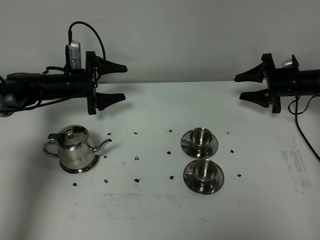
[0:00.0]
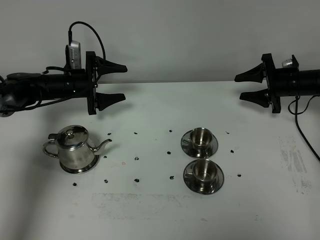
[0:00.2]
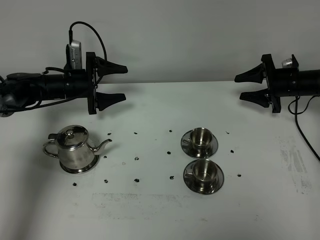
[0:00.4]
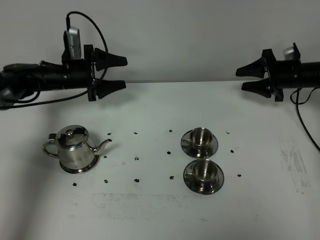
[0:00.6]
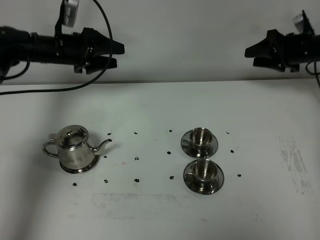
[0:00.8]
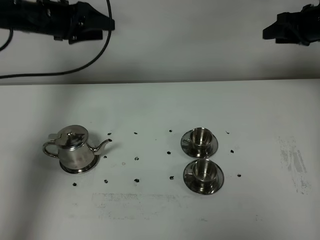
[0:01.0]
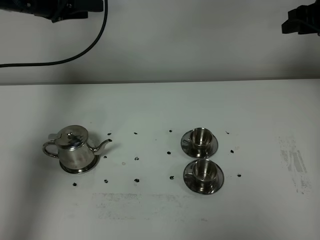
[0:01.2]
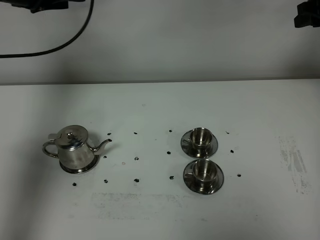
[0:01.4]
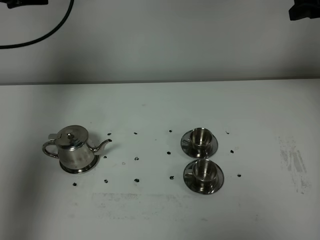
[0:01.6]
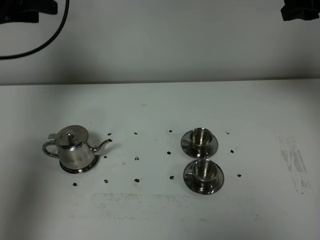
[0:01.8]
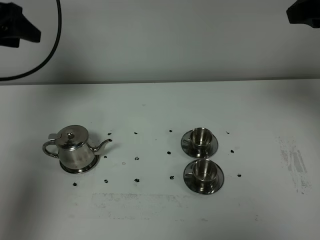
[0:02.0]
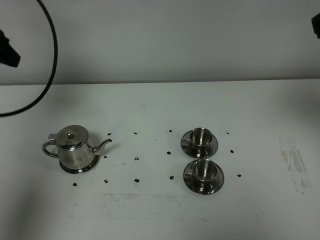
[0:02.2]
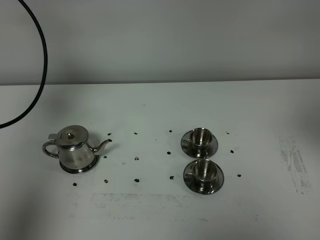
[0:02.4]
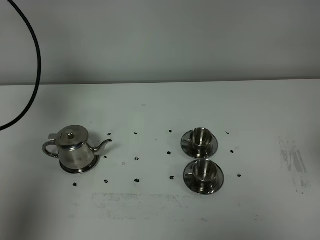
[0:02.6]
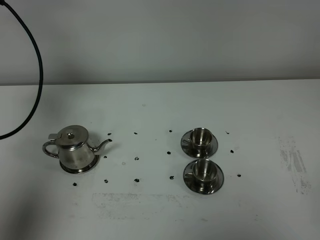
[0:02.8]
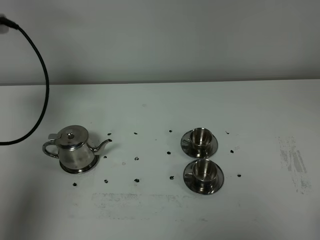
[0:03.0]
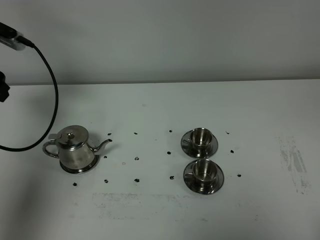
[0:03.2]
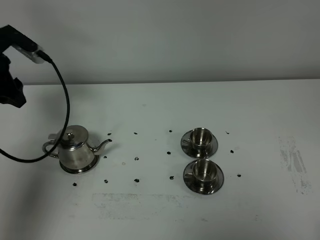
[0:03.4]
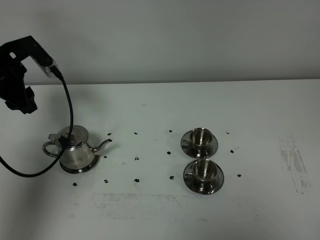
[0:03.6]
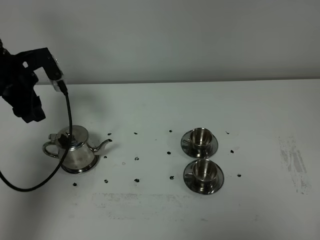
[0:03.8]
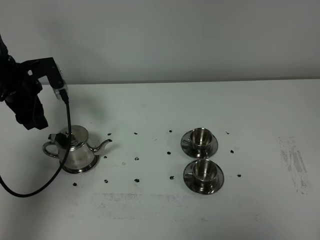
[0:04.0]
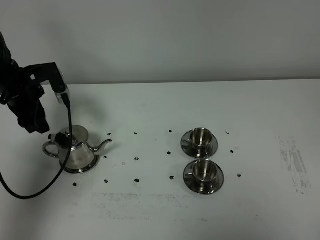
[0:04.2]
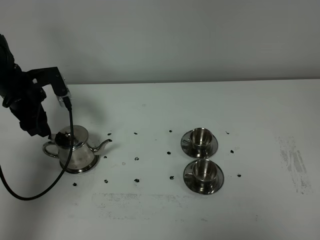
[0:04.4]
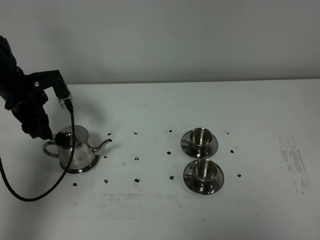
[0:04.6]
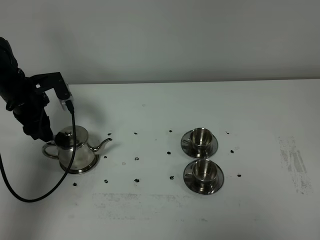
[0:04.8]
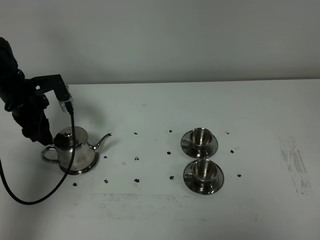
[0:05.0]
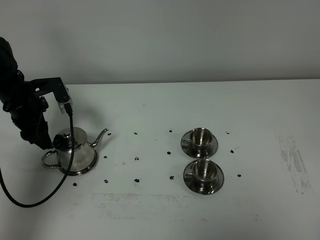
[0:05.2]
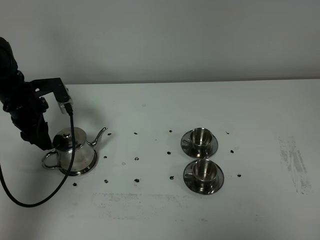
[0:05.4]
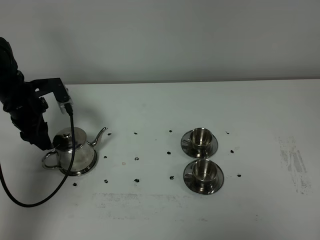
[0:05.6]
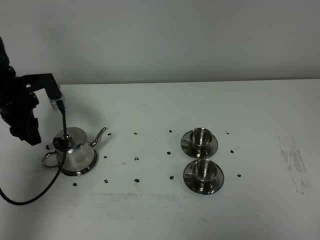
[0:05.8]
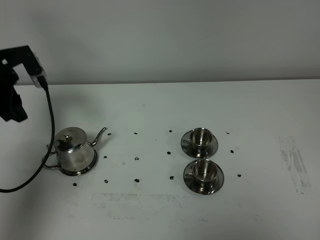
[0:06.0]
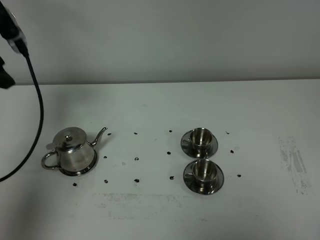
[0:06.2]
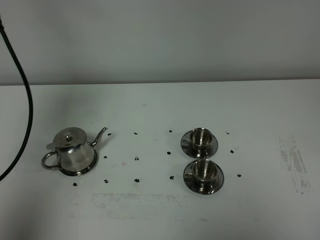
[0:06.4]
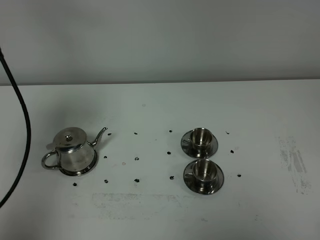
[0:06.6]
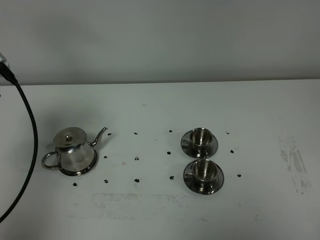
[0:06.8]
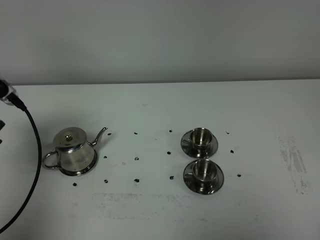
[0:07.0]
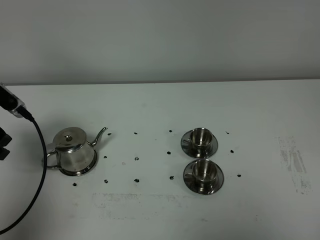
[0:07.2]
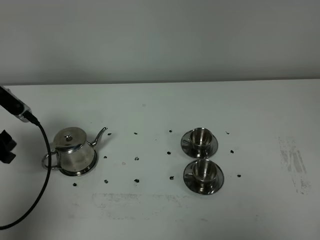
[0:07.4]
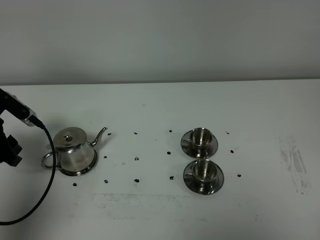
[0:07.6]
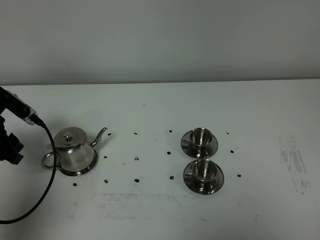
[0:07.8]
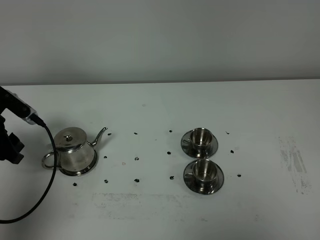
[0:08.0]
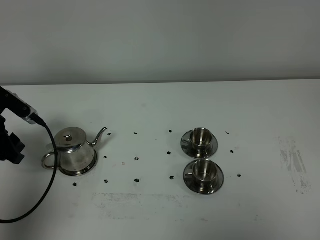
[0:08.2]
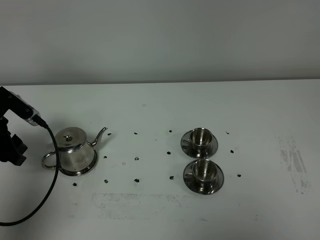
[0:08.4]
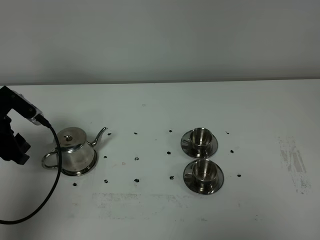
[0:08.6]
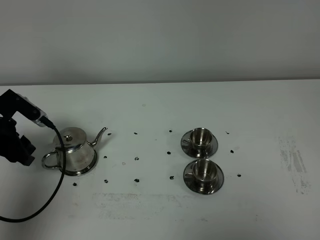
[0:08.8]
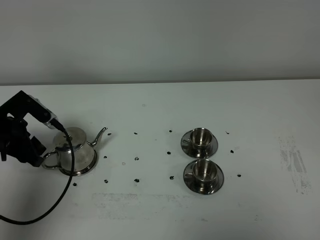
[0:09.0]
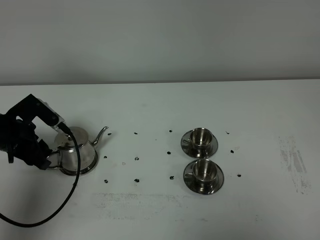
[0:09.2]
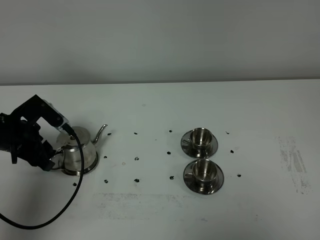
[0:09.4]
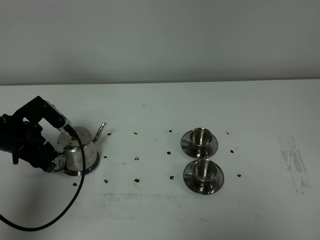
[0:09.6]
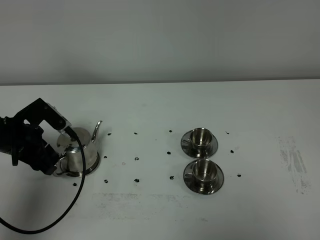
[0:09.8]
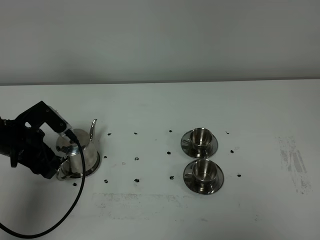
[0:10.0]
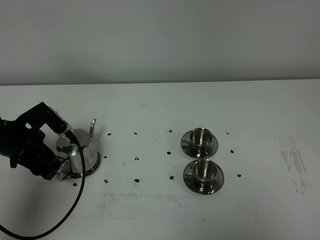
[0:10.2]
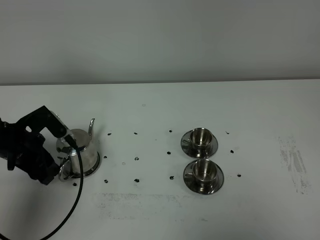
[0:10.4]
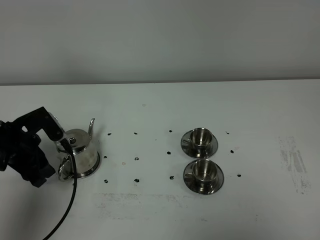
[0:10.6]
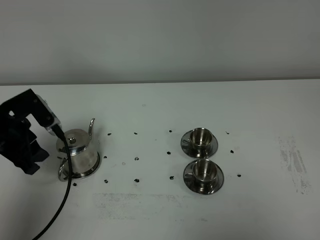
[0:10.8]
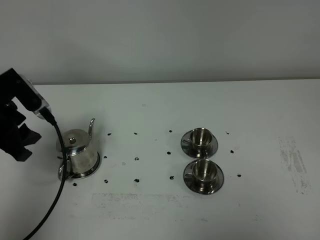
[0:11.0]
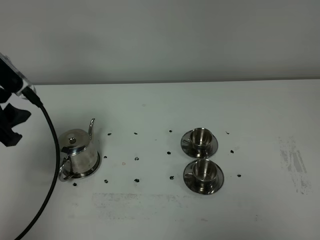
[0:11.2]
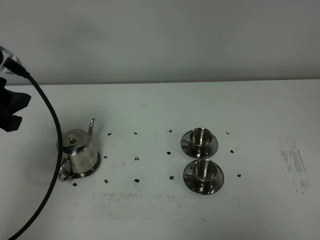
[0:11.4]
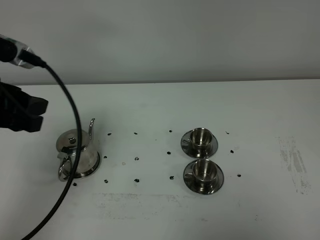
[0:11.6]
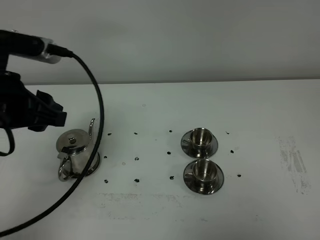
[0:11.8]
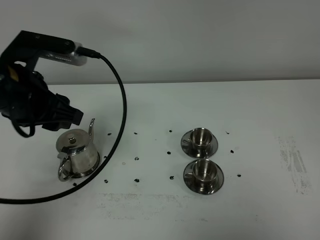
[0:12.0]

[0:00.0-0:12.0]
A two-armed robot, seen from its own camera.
Task of the whole recording: grasp the stainless steel teapot and pour the tea into the two stainless steel teacups one by one, put the stainless steel teapot back in its original place.
0:00.0 to 0:01.6: Both grippers move upward, about 30 cm.
0:01.6 to 0:03.0: The left gripper is displaced backward, downward and to the left by approximately 10 cm, while the right gripper heads backward, covering roughly 40 cm.
0:03.0 to 0:04.4: The left gripper shifts roughly 15 cm downward.
0:04.4 to 0:06.0: The left gripper heads upward, covering roughly 10 cm.
0:06.0 to 0:07.6: The left gripper travels downward and backward by approximately 10 cm.
0:07.6 to 0:09.0: The grippers stay close to where they were, moving slightly.
0:09.0 to 0:10.4: The grippers make only small movements.
0:10.4 to 0:12.0: The left gripper moves upward and to the right, about 20 cm.

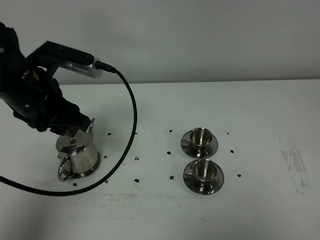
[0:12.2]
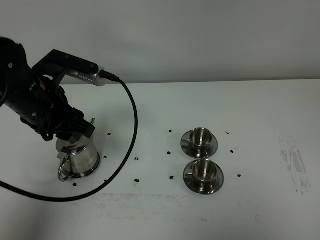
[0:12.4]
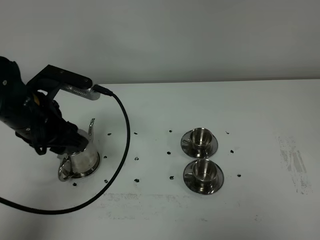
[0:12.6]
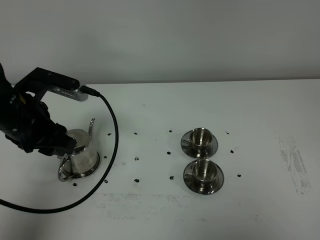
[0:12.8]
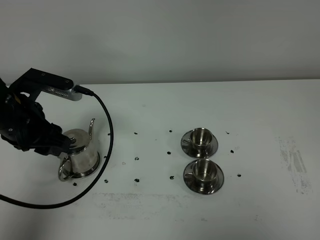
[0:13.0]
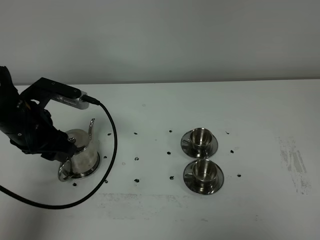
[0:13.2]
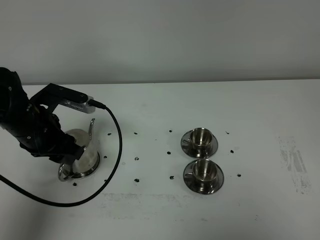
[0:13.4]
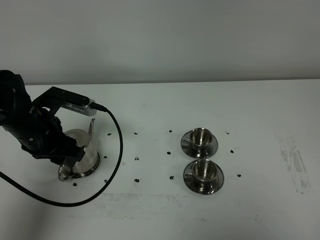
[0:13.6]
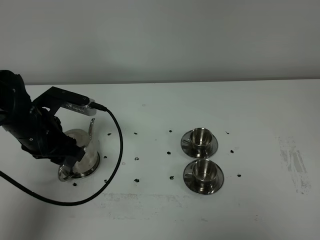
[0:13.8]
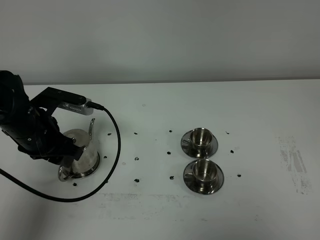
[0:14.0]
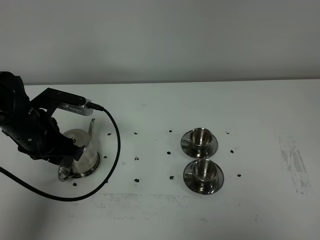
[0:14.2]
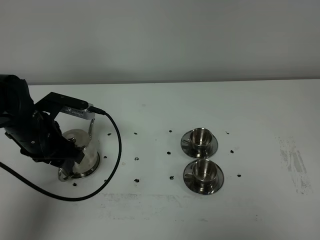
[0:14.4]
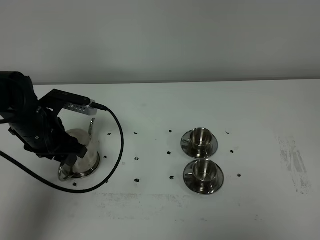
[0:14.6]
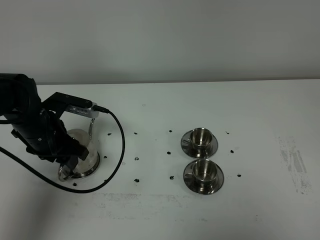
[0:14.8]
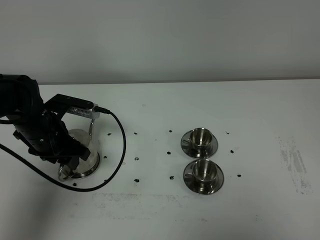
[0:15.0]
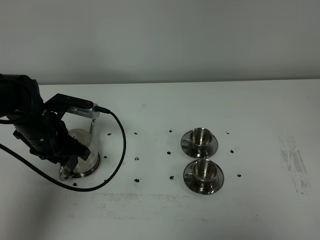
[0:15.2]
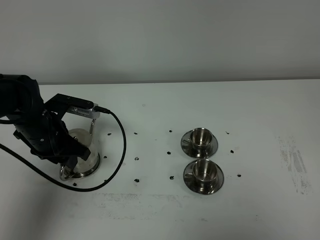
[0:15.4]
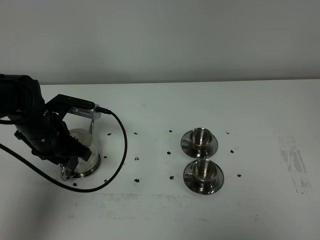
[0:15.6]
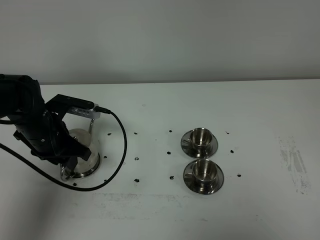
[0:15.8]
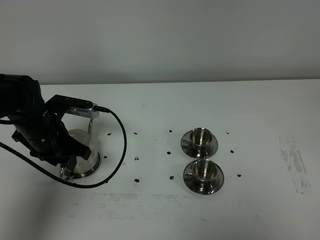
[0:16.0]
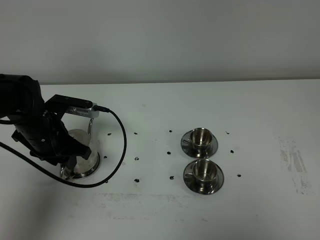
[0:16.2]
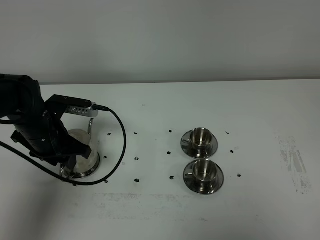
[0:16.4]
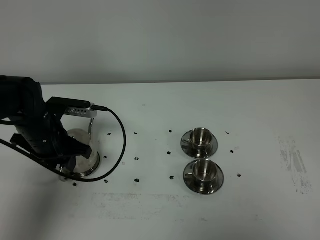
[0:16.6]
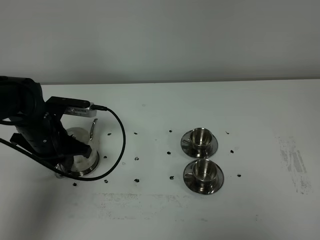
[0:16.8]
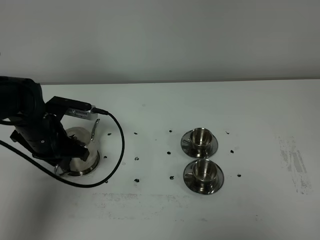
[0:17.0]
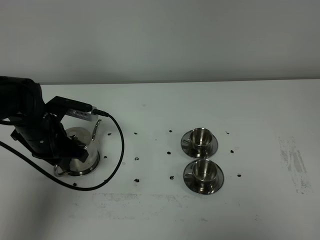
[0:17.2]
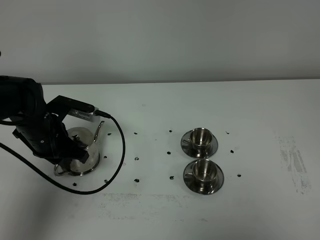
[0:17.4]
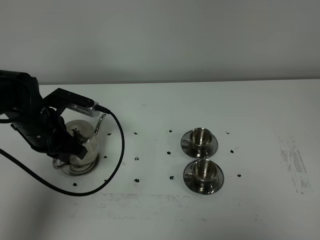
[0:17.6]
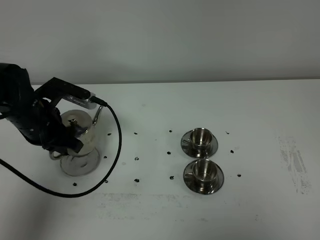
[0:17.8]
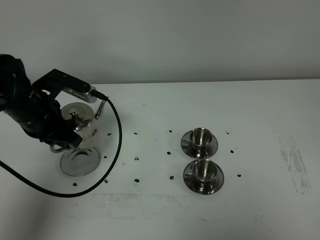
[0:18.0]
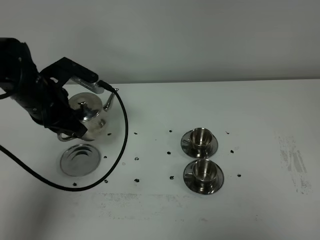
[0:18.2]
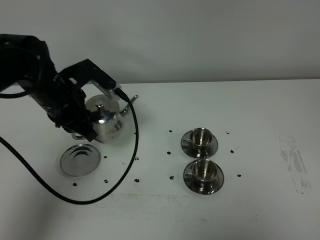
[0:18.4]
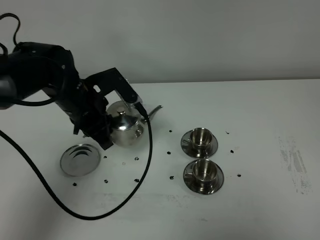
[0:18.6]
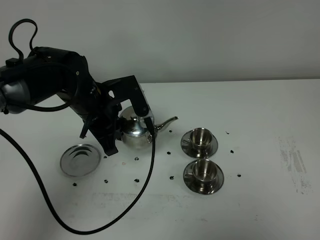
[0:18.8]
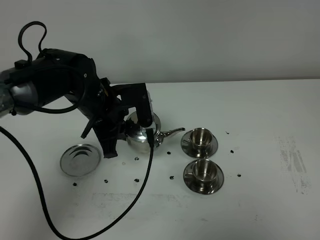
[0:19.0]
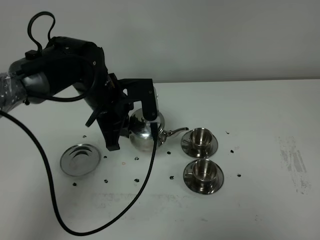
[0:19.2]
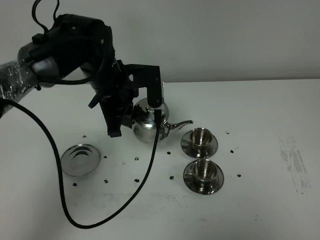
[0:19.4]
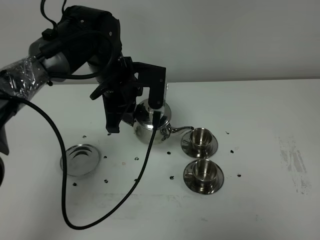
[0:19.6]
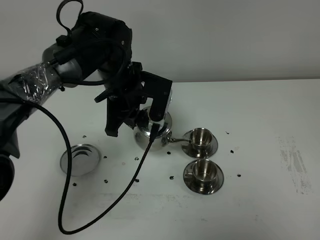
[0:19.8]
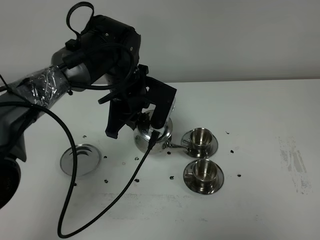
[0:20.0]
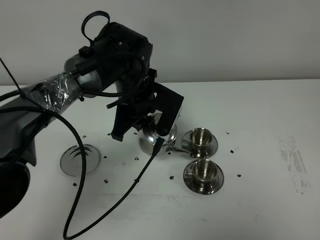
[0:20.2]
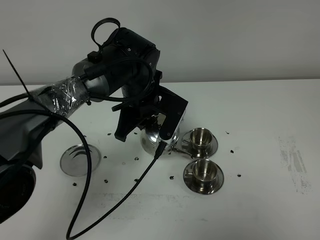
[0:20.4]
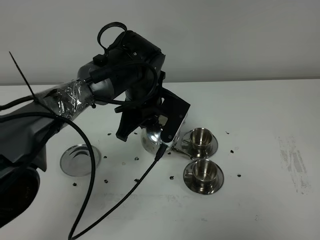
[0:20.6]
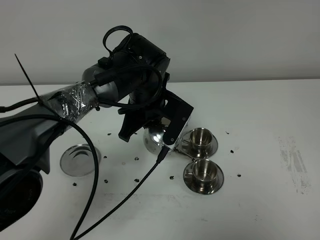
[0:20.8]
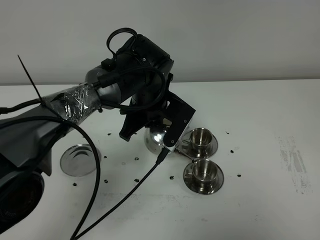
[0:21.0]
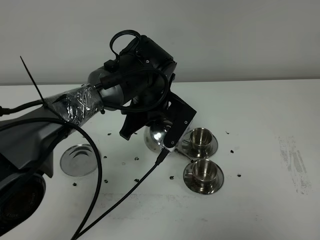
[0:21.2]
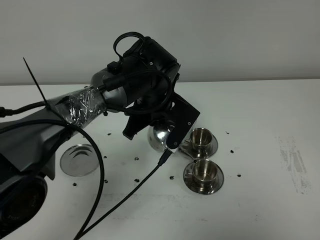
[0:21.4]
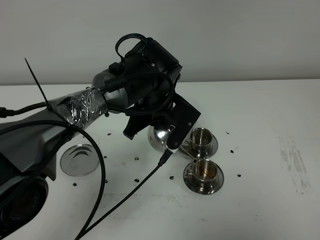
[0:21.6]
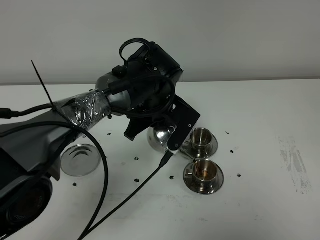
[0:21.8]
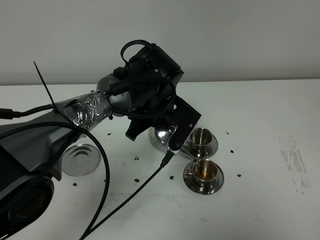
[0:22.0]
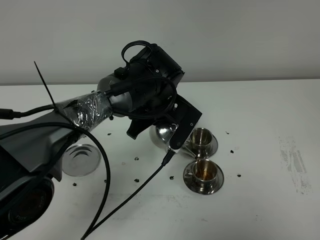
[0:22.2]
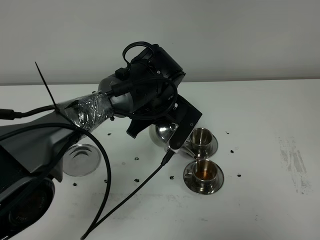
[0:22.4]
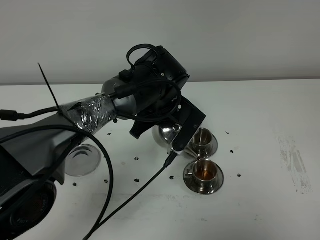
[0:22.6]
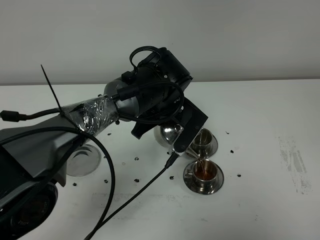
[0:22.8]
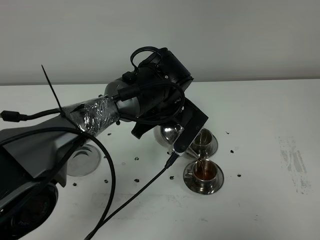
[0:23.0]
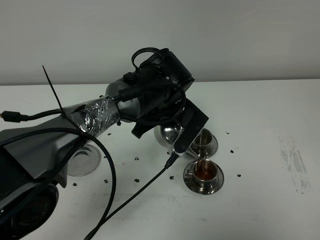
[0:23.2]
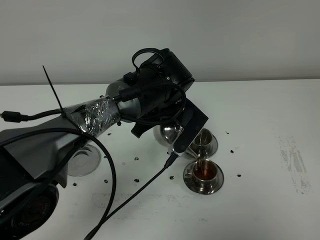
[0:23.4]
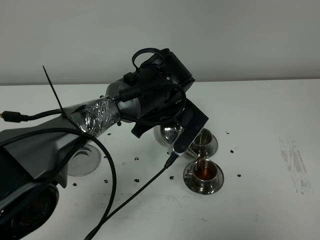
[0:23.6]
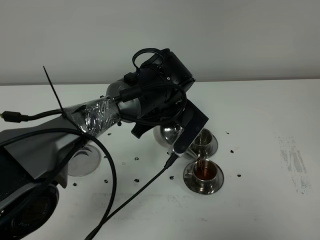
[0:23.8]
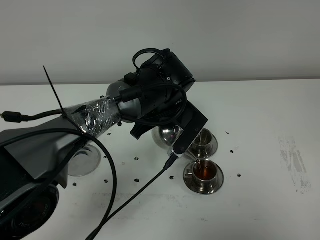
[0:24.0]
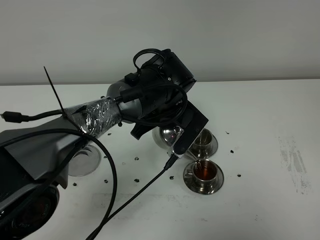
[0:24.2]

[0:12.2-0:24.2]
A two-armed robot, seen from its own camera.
Task of the whole recording: grasp the stainless steel teapot and pour the tea into the two stainless steel teacups one by one, put the stainless steel teapot back in its original place.
Step, 0:12.2 to 0:17.6: Pick up the teapot with the left gripper.
0:12.2 to 0:13.8: The left gripper shifts about 10 cm downward.
0:13.8 to 0:16.6: There are only small adjustments of the grippers.
0:16.6 to 0:18.2: The left gripper is displaced upward by about 10 cm, and closes.
0:18.2 to 0:19.8: The left gripper moves to the right, roughly 15 cm.
0:19.8 to 0:21.2: The left gripper goes some 5 cm to the right.
0:21.2 to 0:22.6: The grippers make only small movements.
0:22.6 to 0:24.2: Both grippers stay put.
